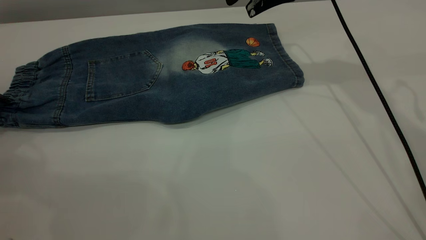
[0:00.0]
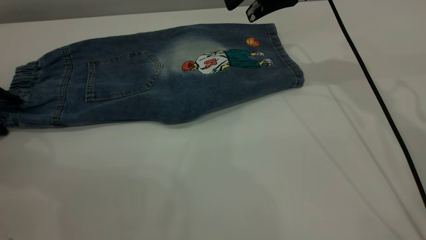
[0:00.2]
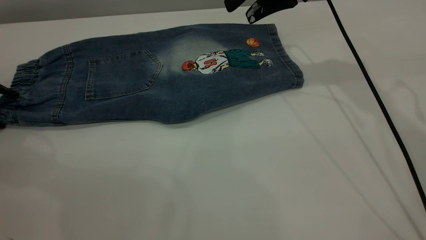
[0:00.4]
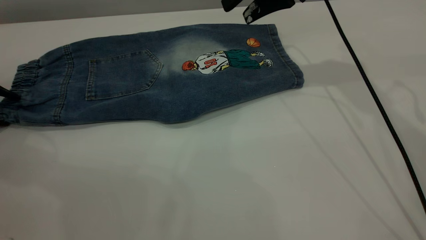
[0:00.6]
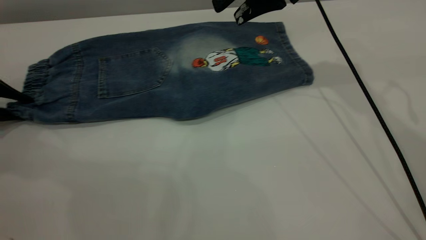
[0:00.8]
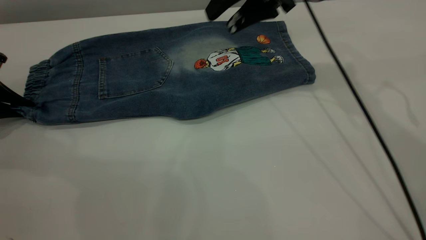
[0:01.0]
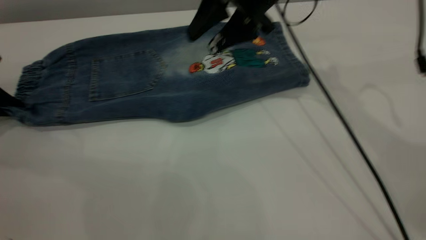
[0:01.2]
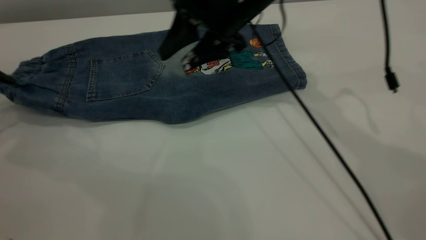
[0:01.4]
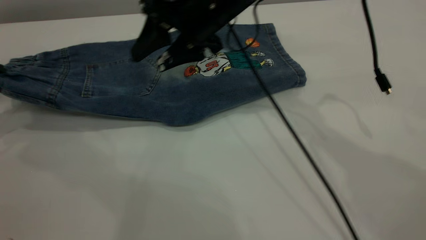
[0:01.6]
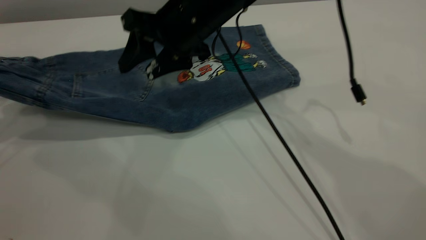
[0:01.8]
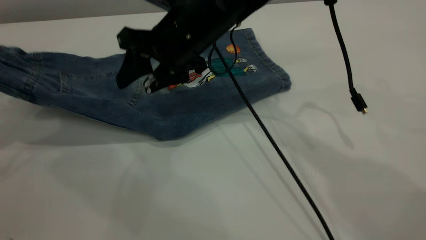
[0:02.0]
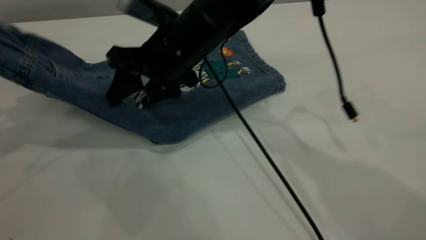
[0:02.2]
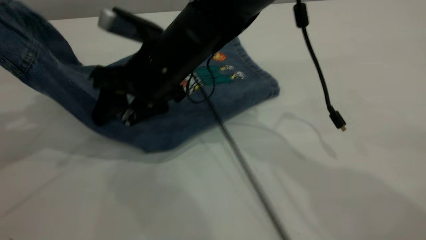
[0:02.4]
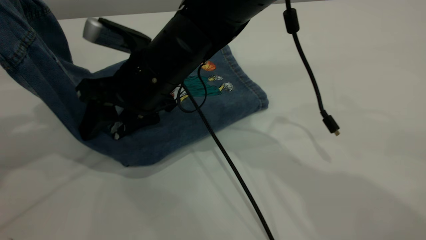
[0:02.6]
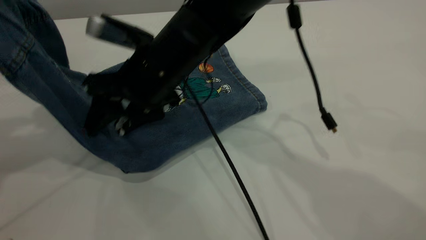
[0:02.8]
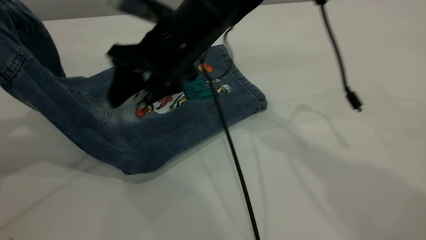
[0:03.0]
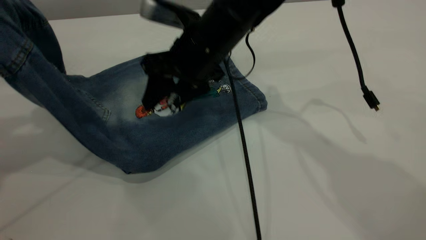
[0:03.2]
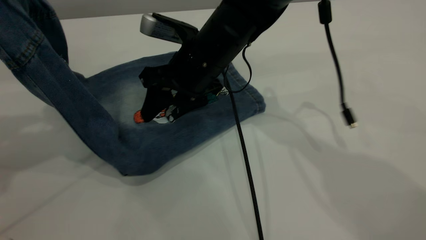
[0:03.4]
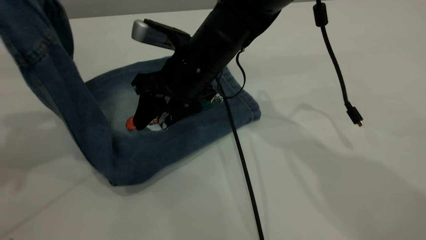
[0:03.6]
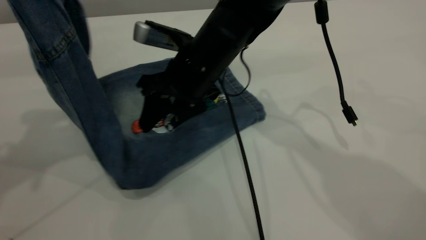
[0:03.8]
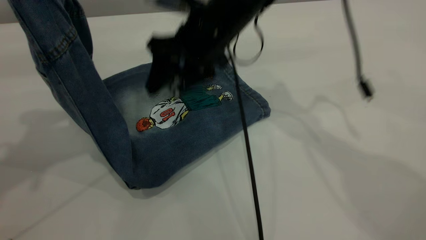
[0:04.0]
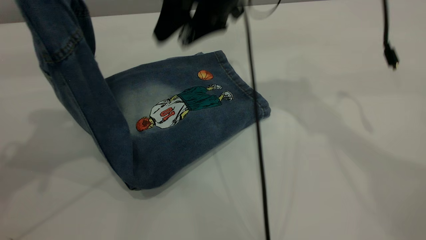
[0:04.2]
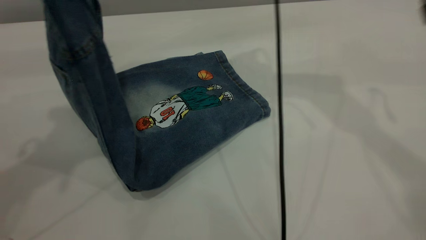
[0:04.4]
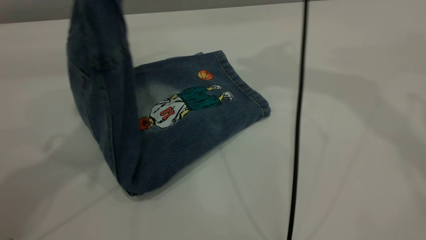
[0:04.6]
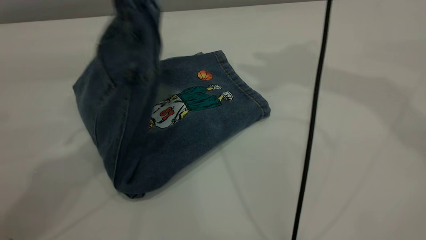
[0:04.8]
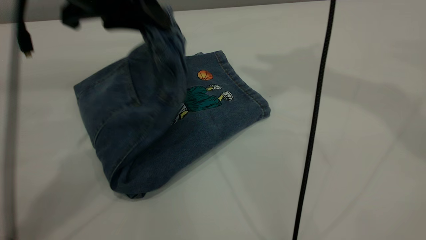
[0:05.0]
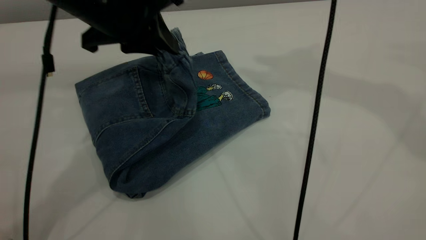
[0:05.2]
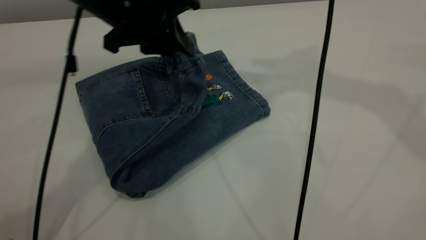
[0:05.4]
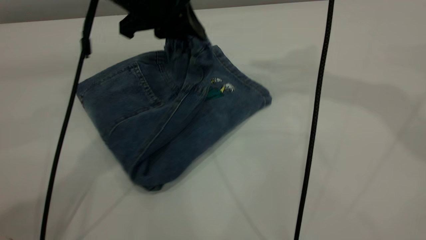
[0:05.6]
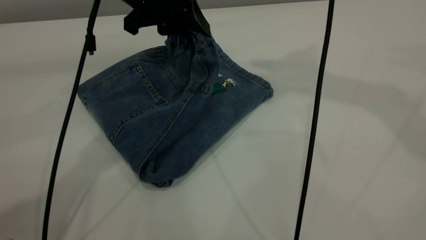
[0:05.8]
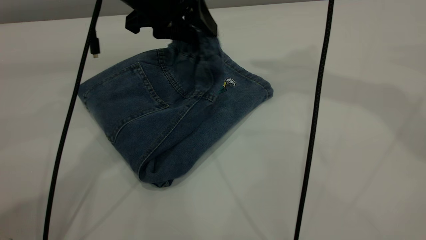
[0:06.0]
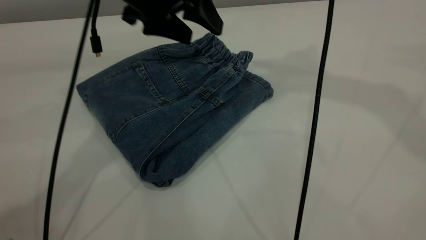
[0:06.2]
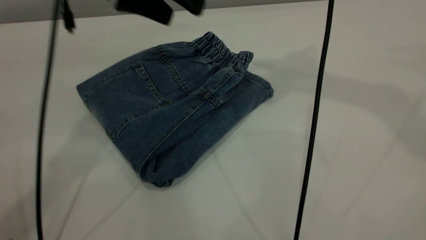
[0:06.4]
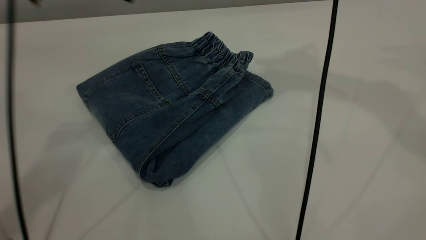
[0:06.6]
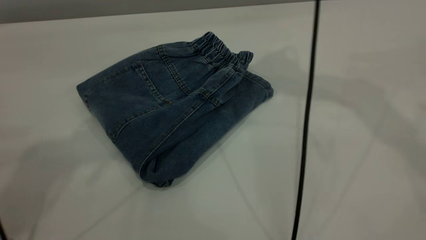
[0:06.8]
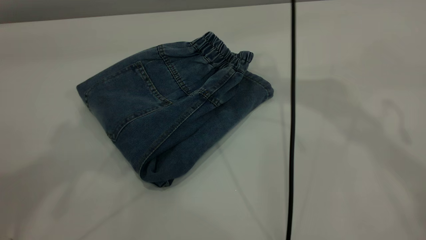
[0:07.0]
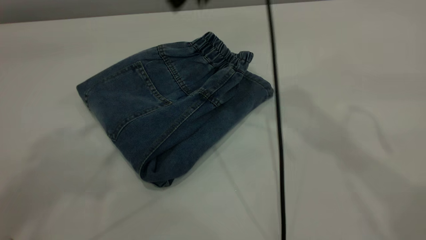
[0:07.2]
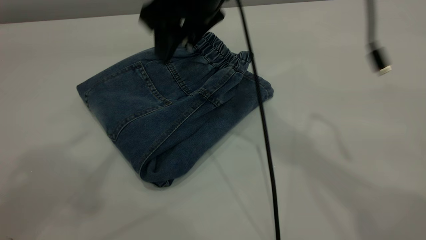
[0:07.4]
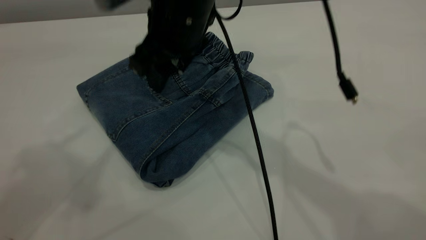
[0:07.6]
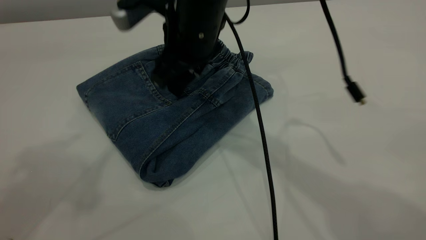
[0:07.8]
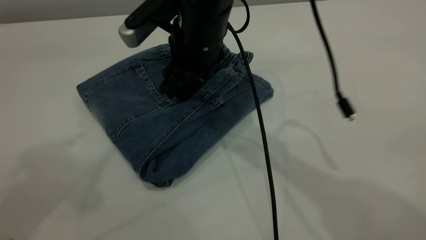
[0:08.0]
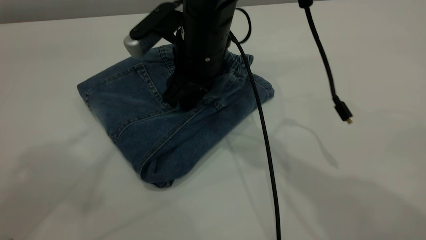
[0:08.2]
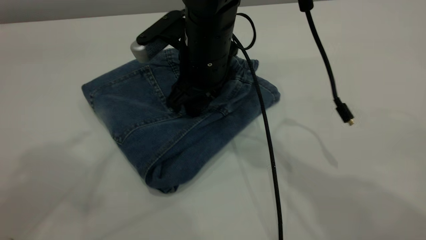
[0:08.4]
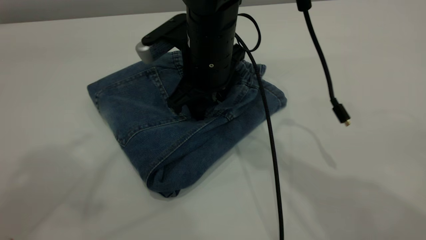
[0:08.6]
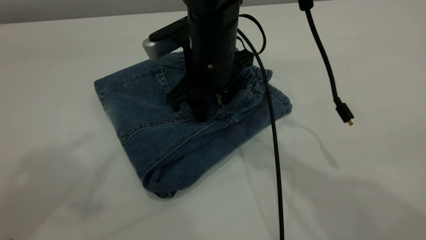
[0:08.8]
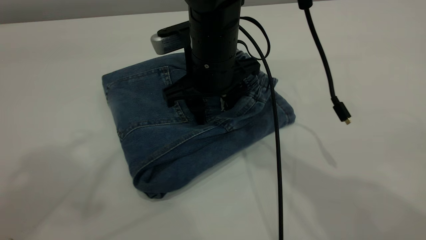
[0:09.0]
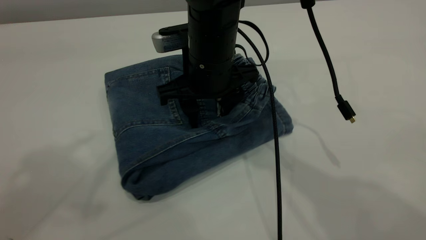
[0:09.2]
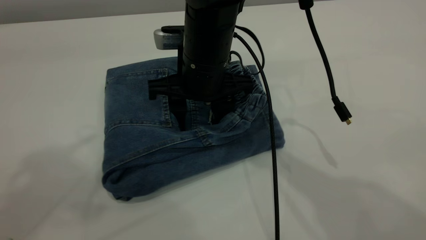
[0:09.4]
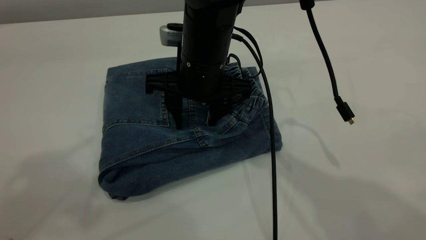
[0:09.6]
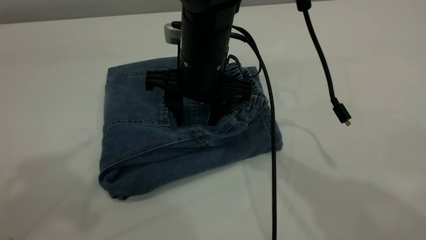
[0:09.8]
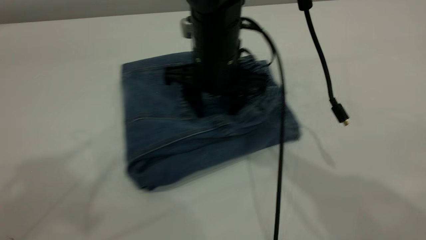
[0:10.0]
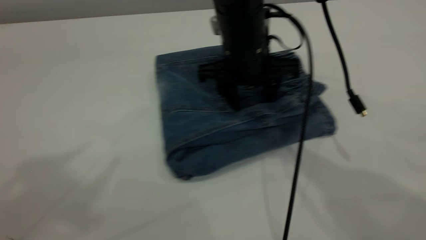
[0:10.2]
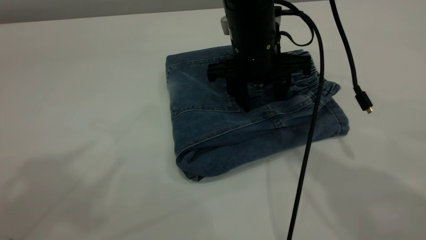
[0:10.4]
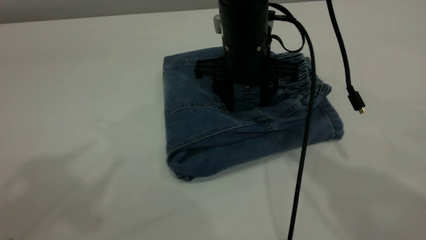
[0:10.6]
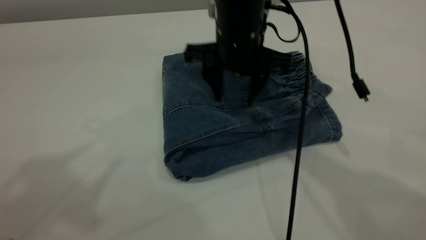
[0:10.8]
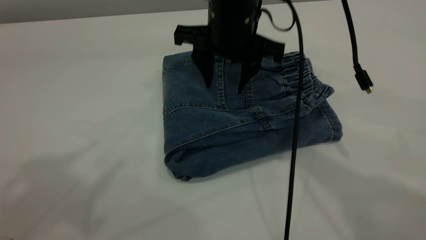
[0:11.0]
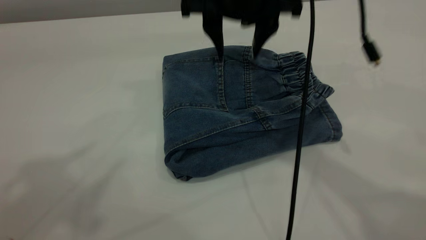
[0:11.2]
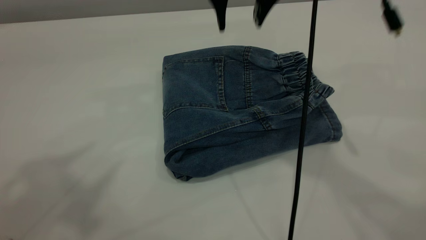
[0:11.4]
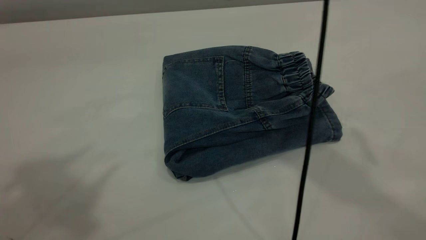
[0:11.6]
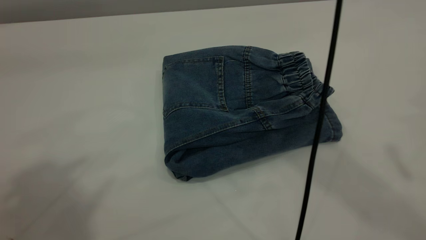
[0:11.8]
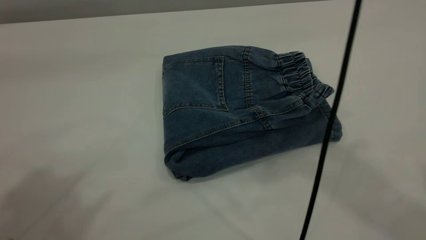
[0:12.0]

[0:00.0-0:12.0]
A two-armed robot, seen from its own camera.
Step, 0:00.0 to 0:06.4: Fold the pants from left to right.
0:00.0 to 0:01.6: The right gripper travels to the left and downward by about 15 cm. The left gripper shifts about 10 cm upward, and closes up.
0:01.6 to 0:03.0: The left gripper moves upward, to the right and backward, about 15 cm.
0:03.0 to 0:04.4: The right gripper travels upward and to the right by roughly 20 cm. Meanwhile the left gripper moves to the right, some 10 cm.
0:04.4 to 0:06.0: The left gripper shifts some 20 cm downward, to the right and forward, and opens up. Meanwhile the right gripper shifts some 15 cm upward and to the right.
0:06.0 to 0:07.6: The left gripper heads upward, backward and to the left, covering some 35 cm, while the right gripper shifts approximately 30 cm downward and to the left.
0:07.6 to 0:09.0: The right gripper heads downward, covering approximately 5 cm.
0:09.0 to 0:10.4: The right gripper moves approximately 5 cm.
0:10.4 to 0:12.0: The right gripper shifts some 35 cm upward.

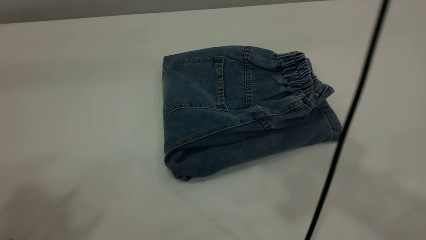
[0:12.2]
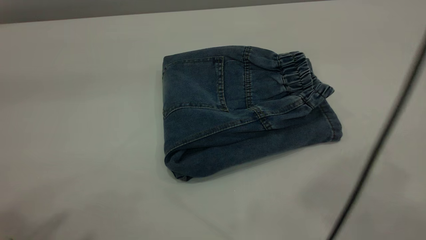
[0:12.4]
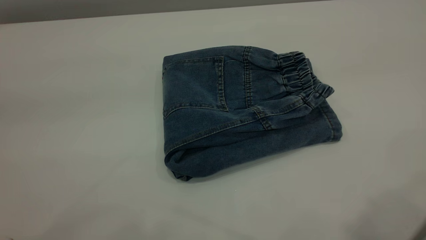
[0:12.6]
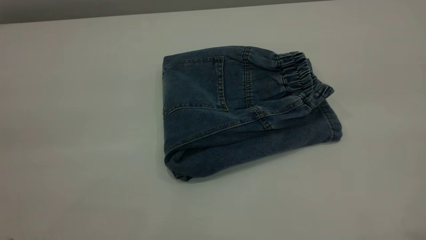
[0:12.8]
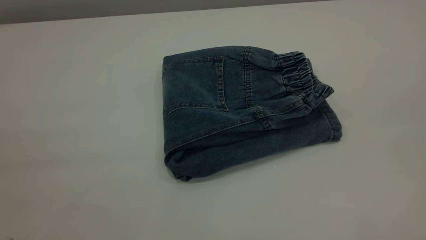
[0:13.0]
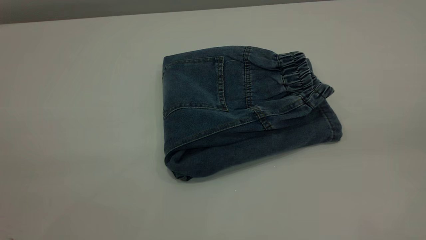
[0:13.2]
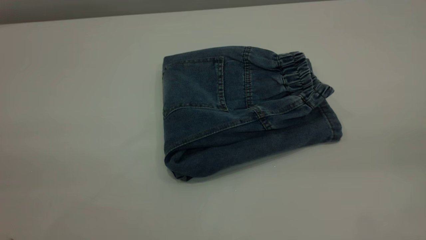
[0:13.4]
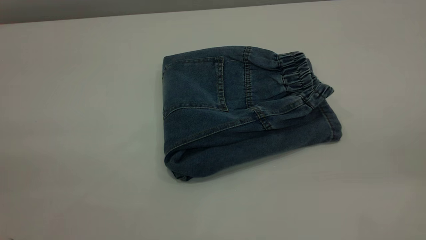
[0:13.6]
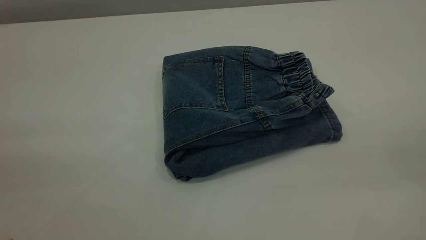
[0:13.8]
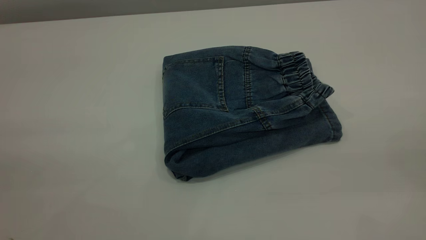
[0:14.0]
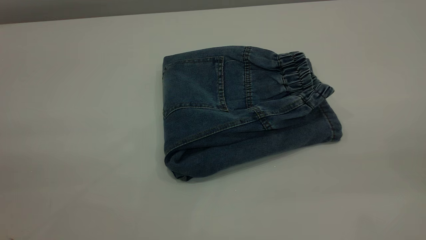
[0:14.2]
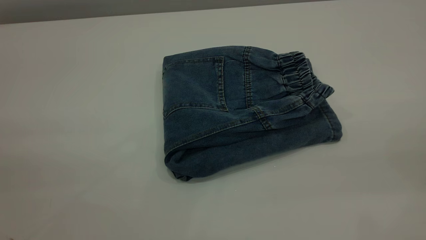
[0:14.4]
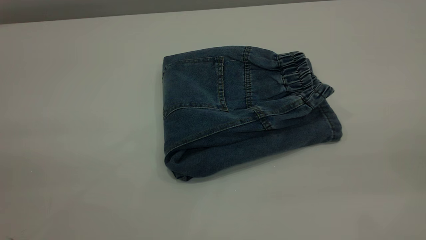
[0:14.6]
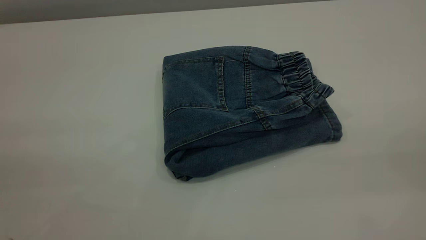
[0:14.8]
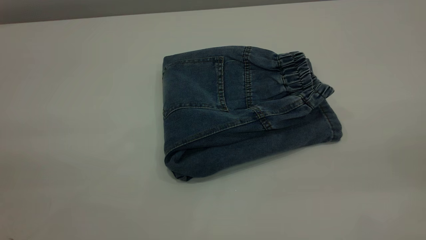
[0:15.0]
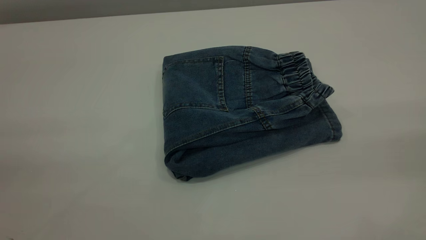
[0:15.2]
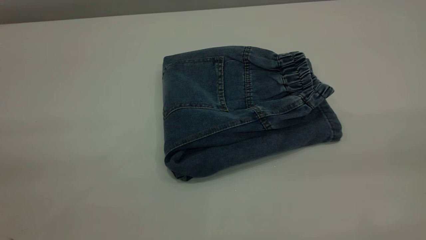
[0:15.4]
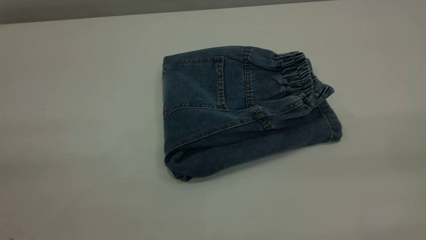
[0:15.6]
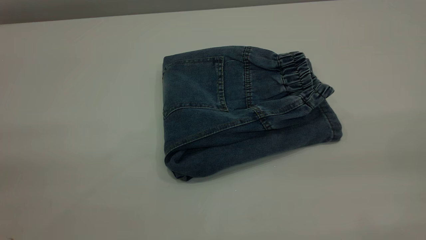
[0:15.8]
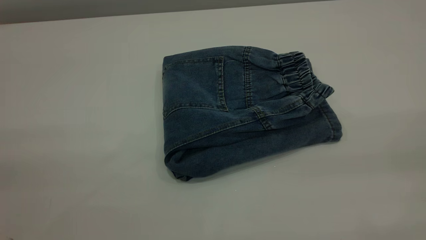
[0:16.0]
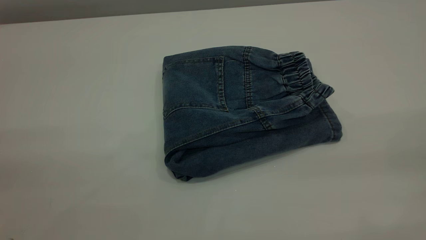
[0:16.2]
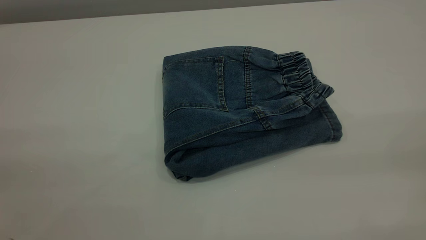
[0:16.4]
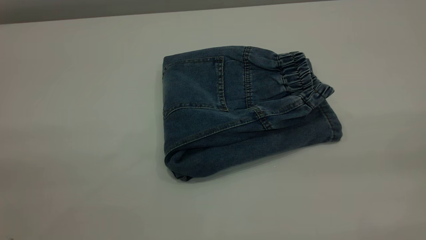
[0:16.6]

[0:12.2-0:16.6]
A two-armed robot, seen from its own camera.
0:12.2 to 0:13.6: The right gripper heads backward, to the right and downward, covering about 30 cm.
